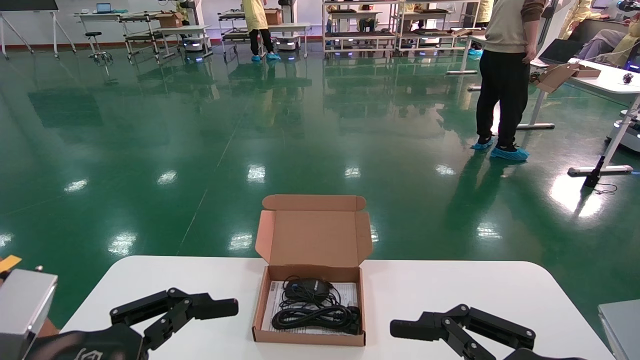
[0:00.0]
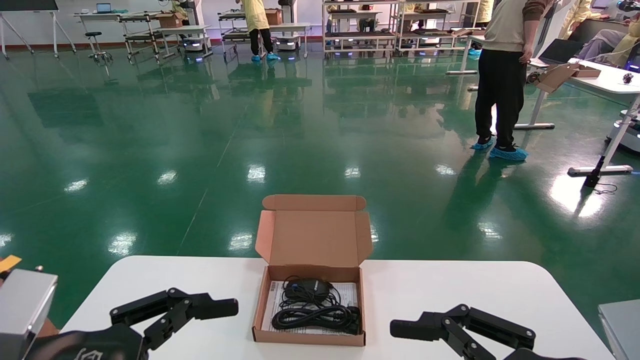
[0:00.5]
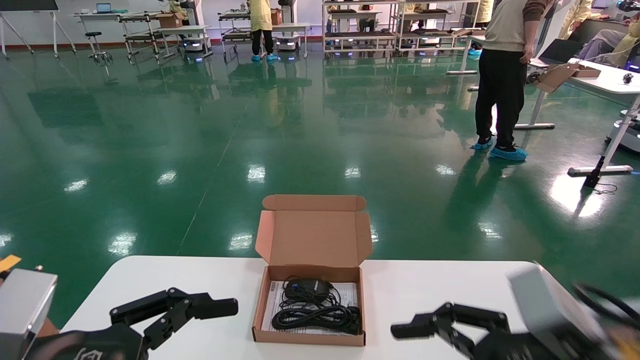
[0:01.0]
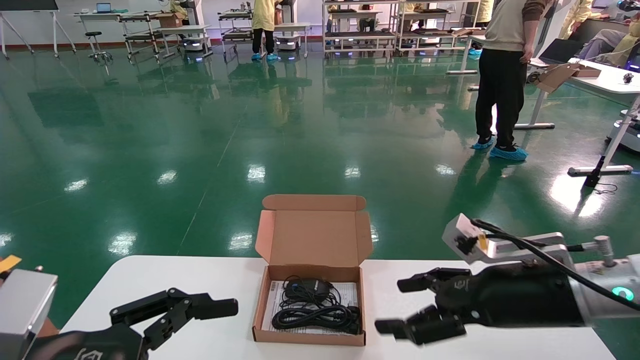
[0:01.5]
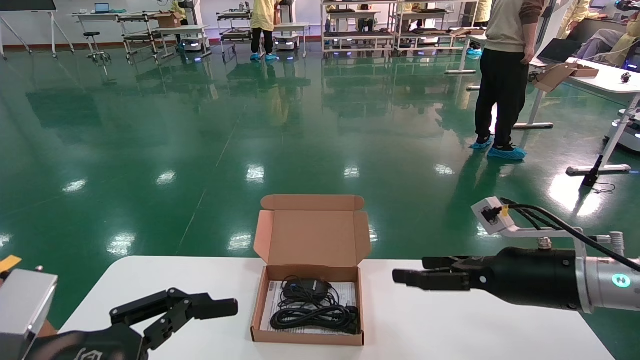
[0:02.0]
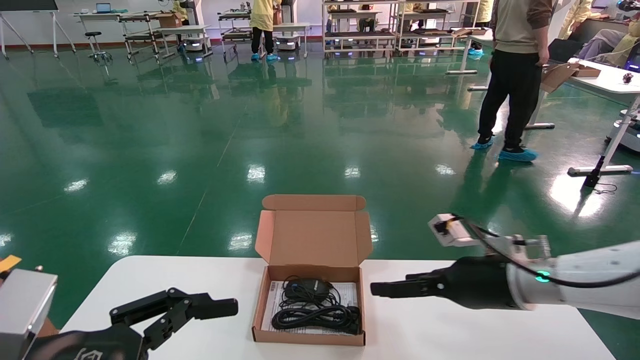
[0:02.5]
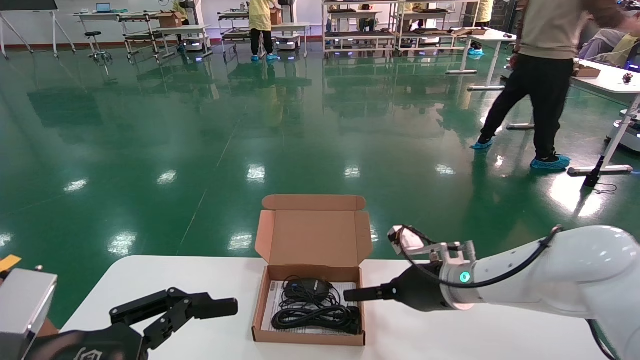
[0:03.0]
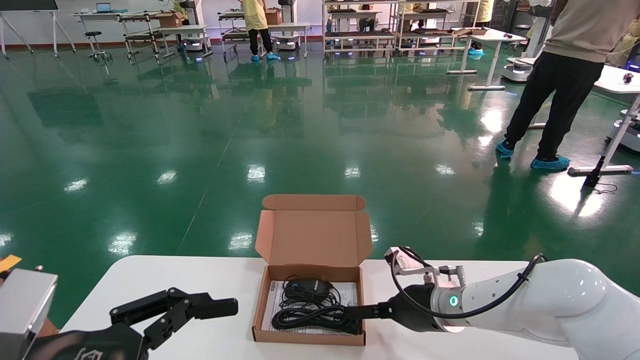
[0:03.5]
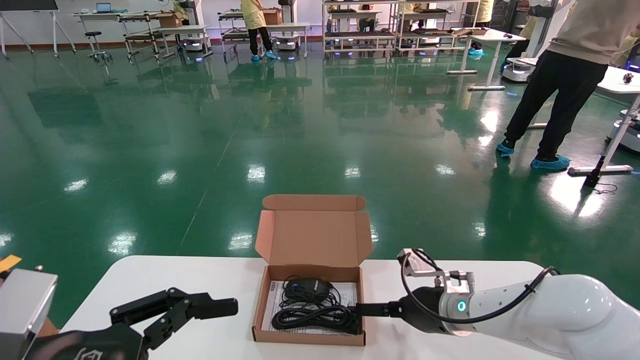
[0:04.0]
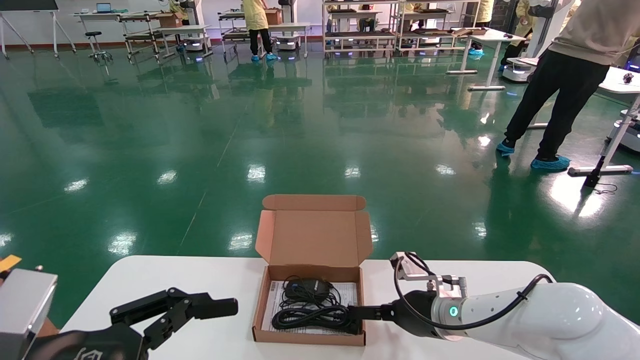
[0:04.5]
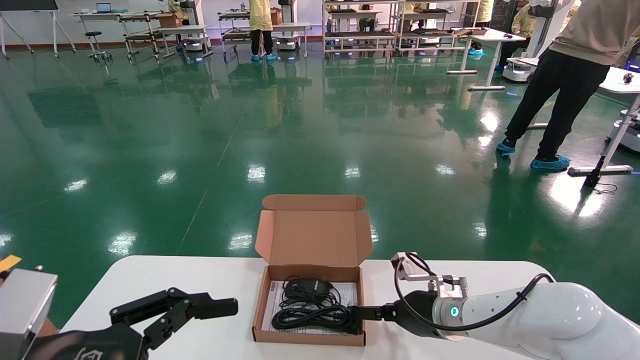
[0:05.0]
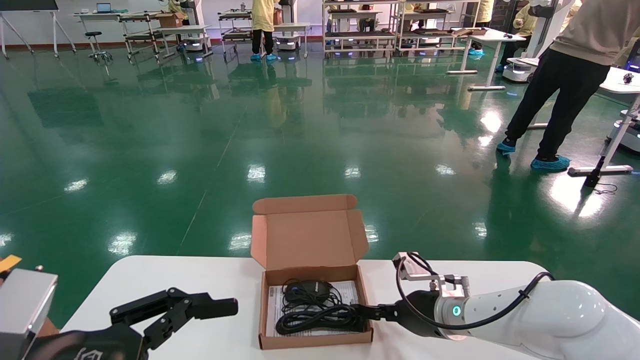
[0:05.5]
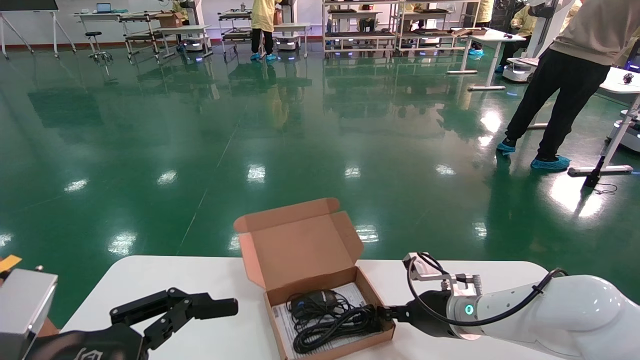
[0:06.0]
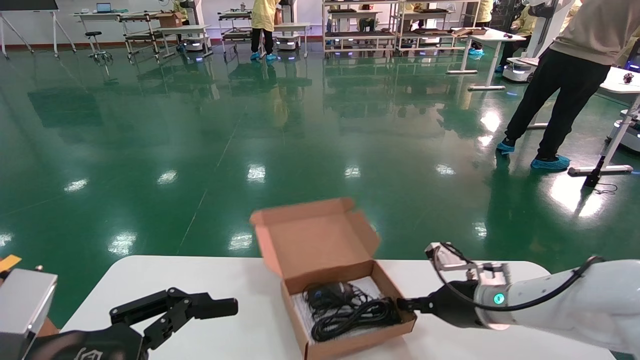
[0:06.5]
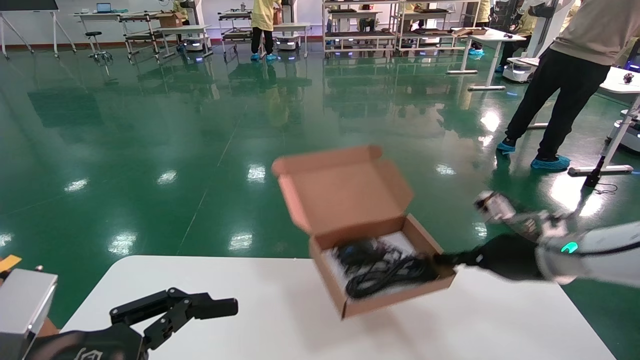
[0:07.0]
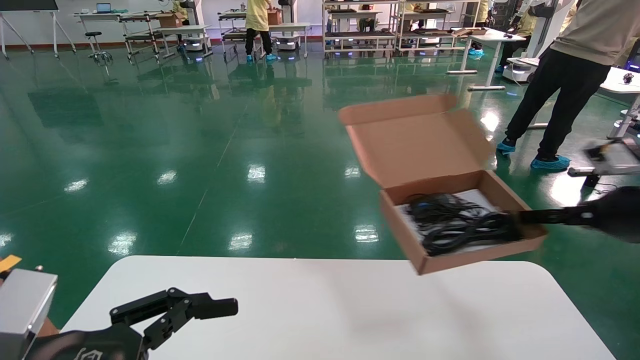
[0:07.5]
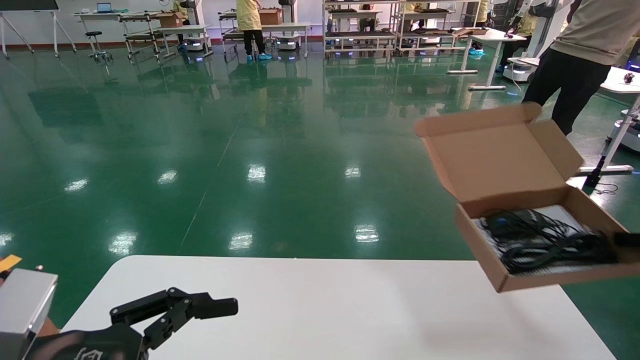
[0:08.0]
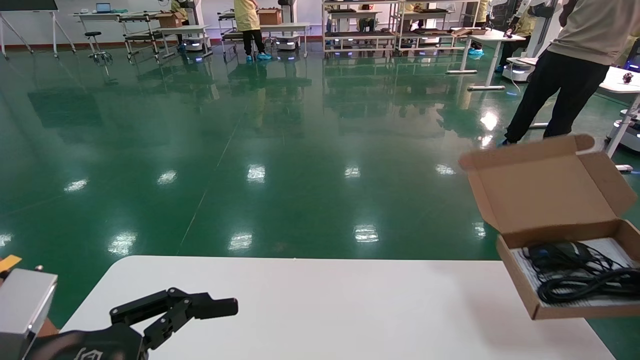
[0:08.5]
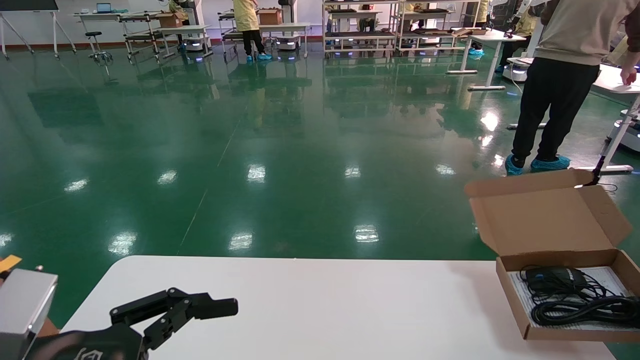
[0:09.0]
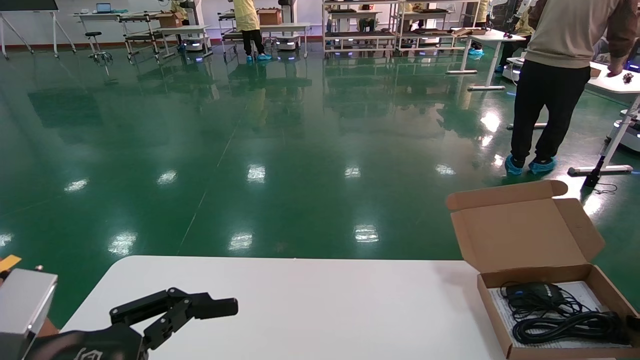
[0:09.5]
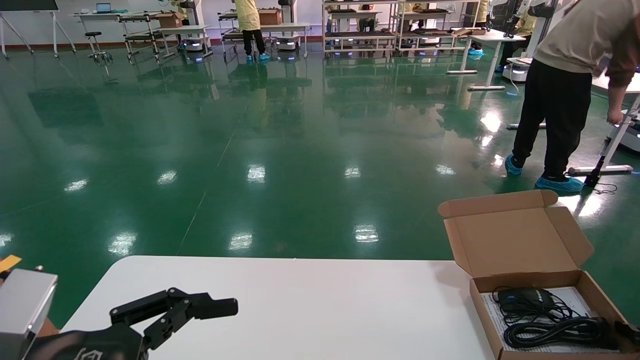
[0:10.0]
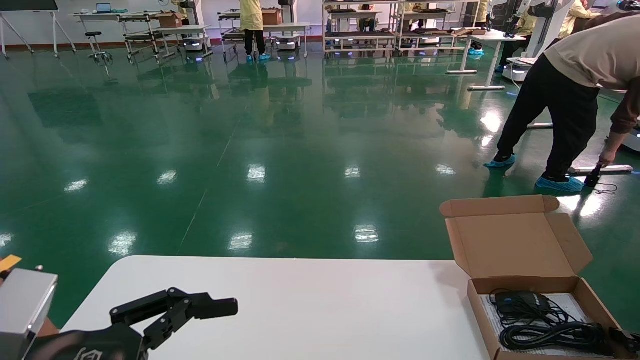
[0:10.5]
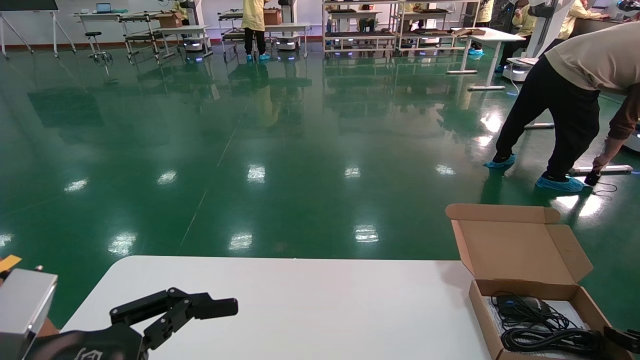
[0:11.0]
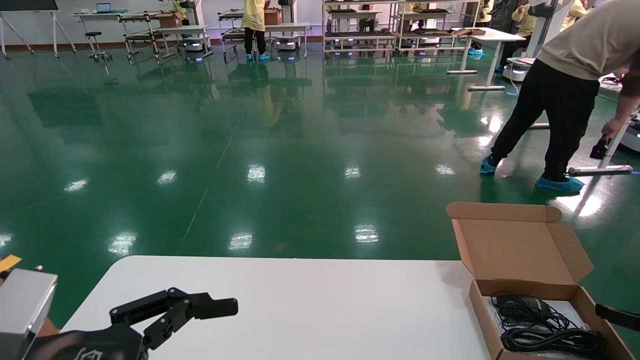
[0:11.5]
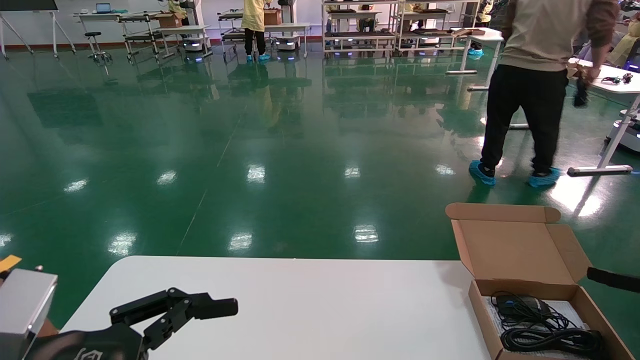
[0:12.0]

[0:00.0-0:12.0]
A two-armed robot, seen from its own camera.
Task of the whole recording: move the position of the storage box with accessories on the table.
Step, 0:01.5 to 0:06.5: Grab and pick up the open mouse box from the accessory packaging area.
Step, 0:07.0 to 0:11.0: Place the open mouse box onto the operation table.
0:00.0 to 0:02.0: The right gripper heads forward, covering about 20 cm.
0:02.0 to 0:04.0: The right gripper is displaced forward, downward and to the left by about 15 cm.
0:04.0 to 0:06.0: The right gripper closes up.
0:06.0 to 0:08.0: The right gripper moves to the right, upward and backward, some 35 cm.
0:08.0 to 0:10.0: The right gripper goes approximately 15 cm downward.
0:10.0 to 0:12.0: The right gripper shifts some 10 cm upward, and opens up.

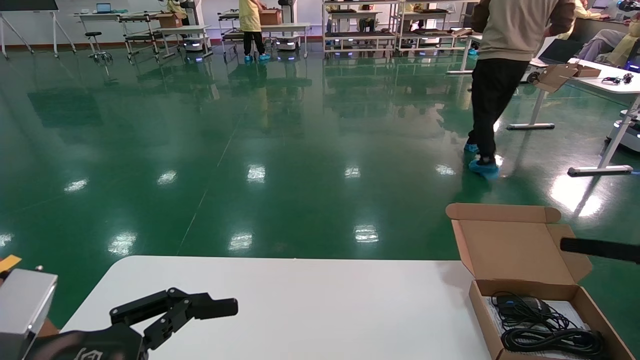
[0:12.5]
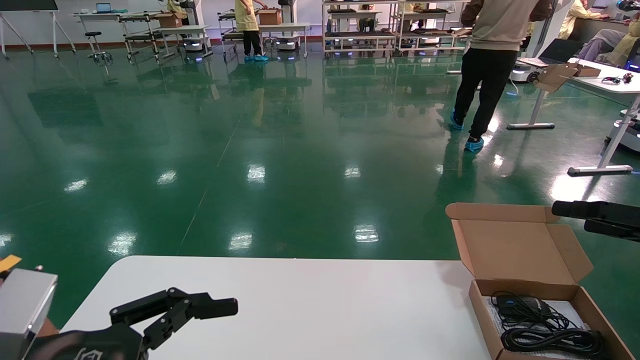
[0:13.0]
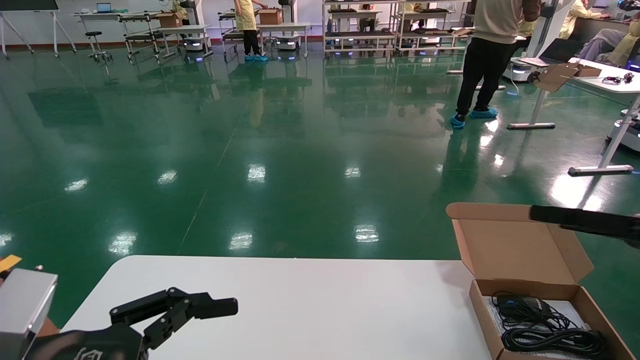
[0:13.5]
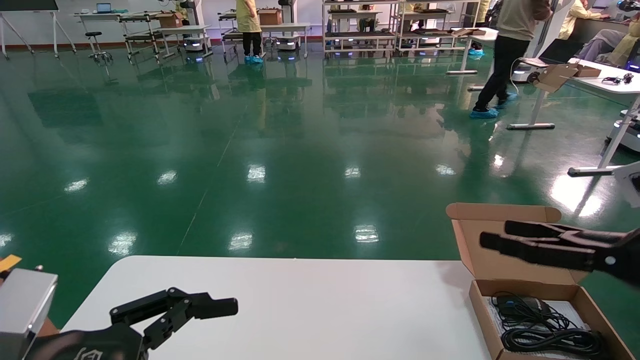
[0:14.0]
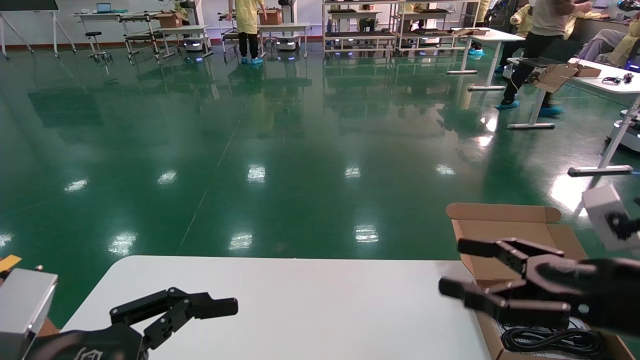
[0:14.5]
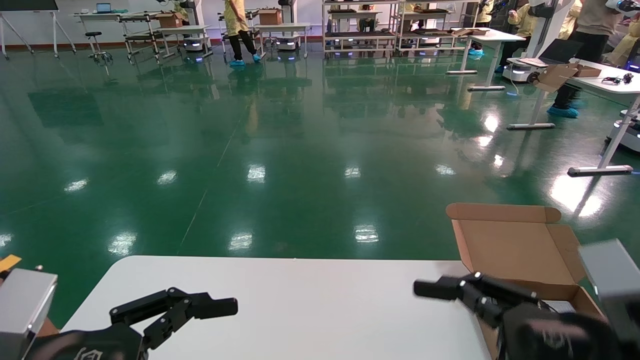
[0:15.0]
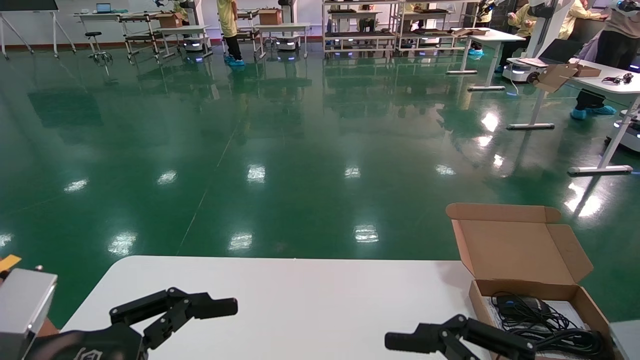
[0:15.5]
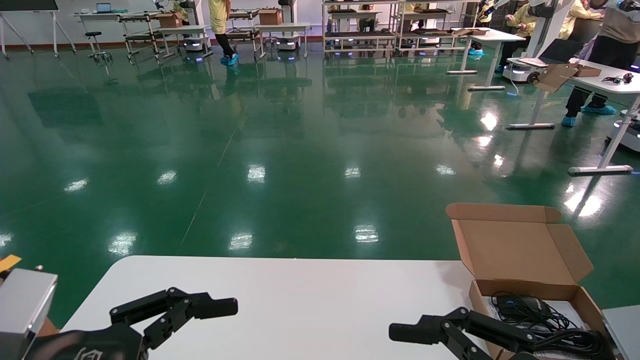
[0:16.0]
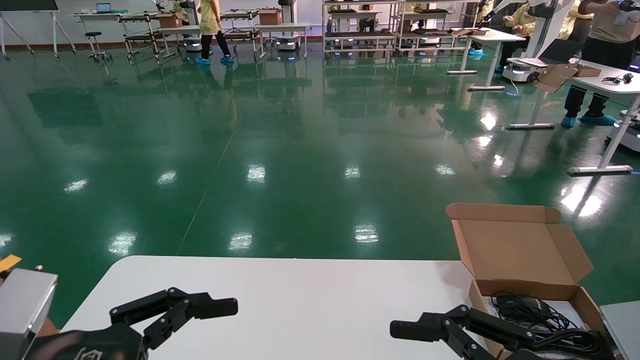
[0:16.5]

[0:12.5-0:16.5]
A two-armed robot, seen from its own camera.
Task of the whole recording: move the position of the storage box with accessories on the table.
0:12.5 to 0:14.5: The right gripper heads to the left, covering approximately 15 cm.
0:14.5 to 0:16.5: The right gripper travels backward and to the left by about 10 cm.
